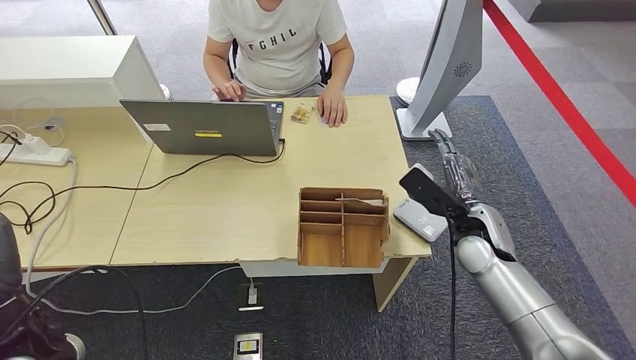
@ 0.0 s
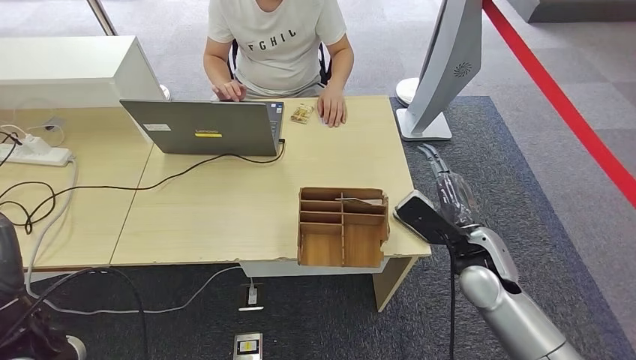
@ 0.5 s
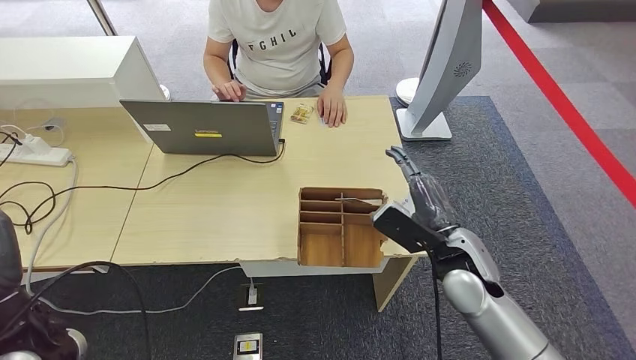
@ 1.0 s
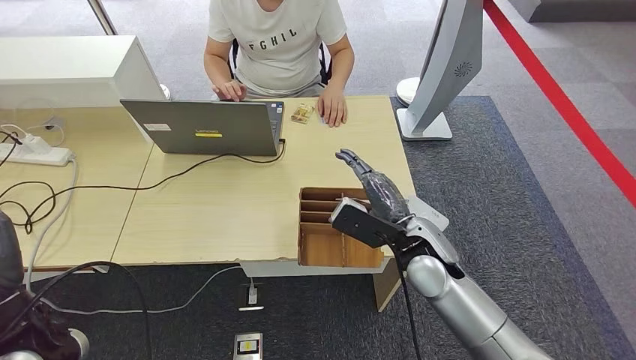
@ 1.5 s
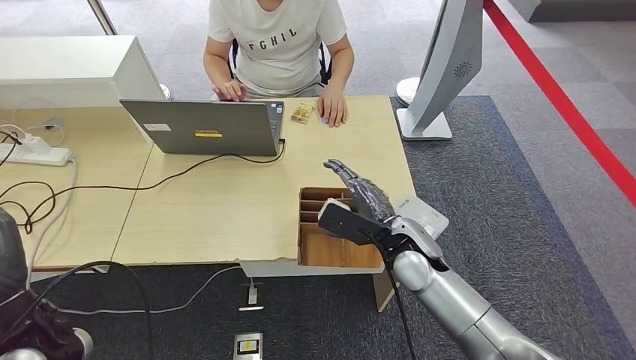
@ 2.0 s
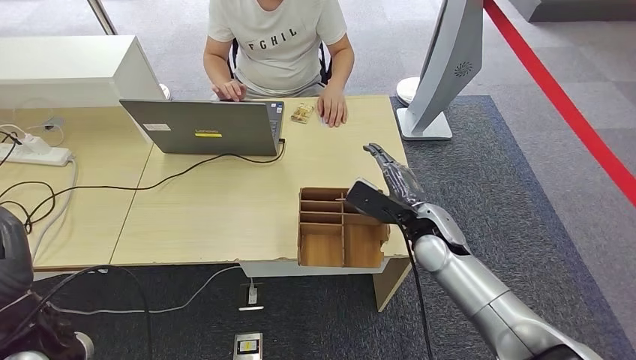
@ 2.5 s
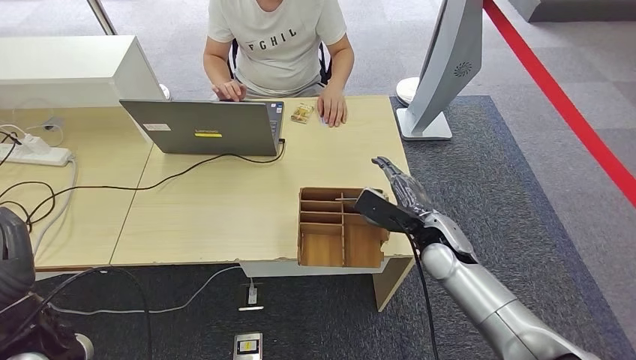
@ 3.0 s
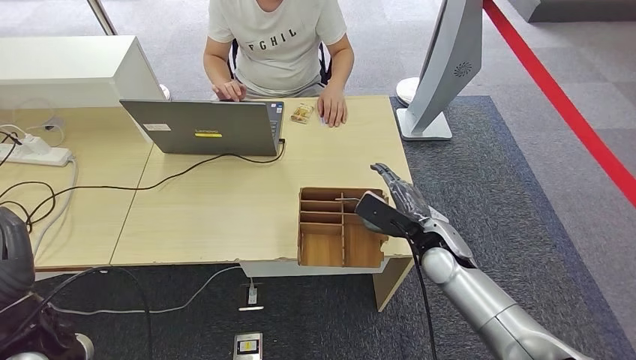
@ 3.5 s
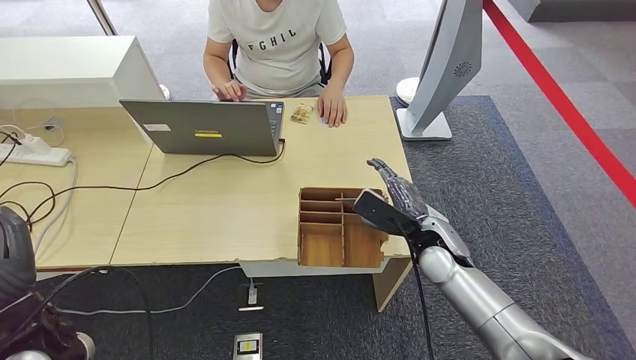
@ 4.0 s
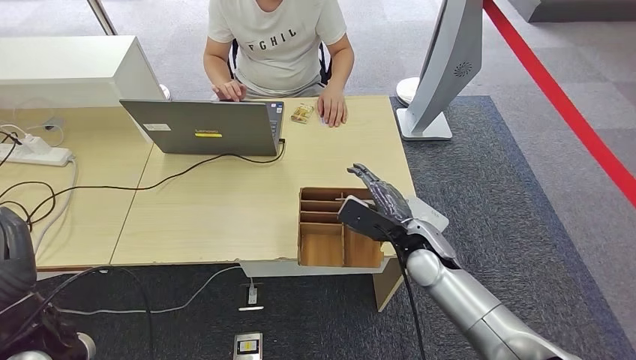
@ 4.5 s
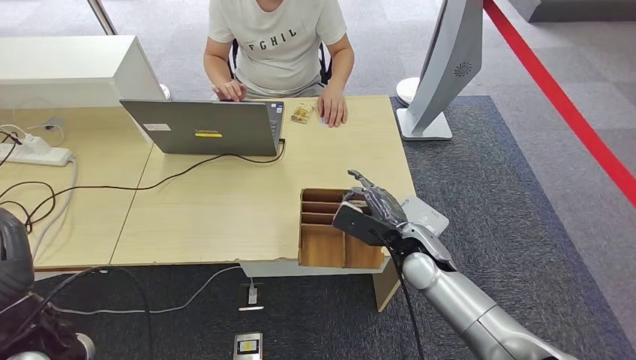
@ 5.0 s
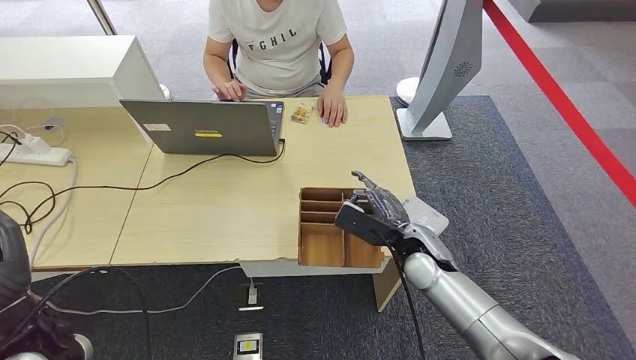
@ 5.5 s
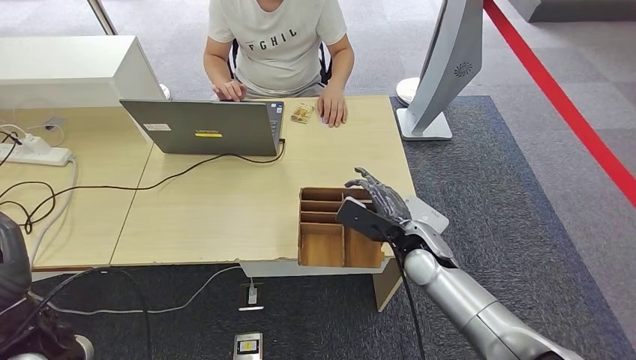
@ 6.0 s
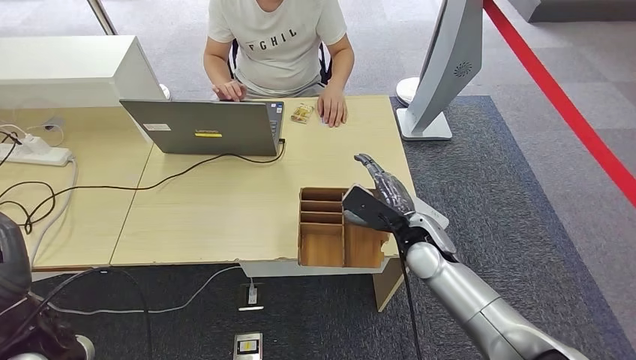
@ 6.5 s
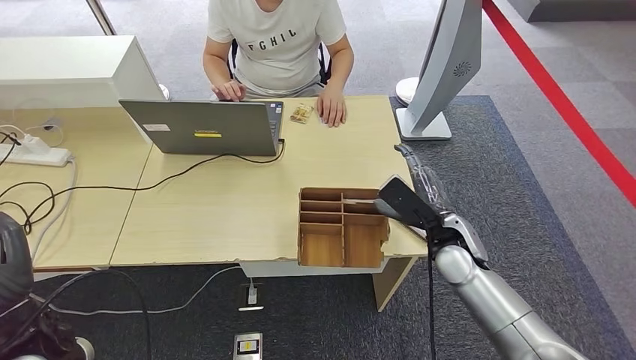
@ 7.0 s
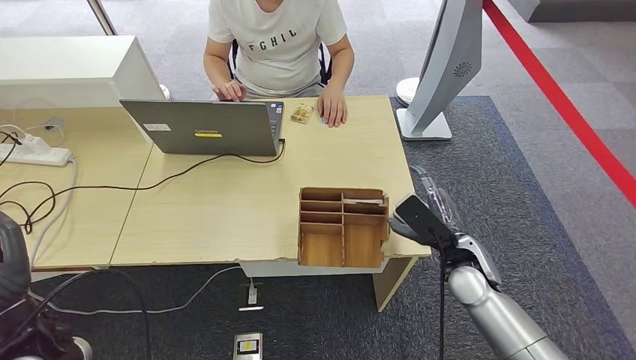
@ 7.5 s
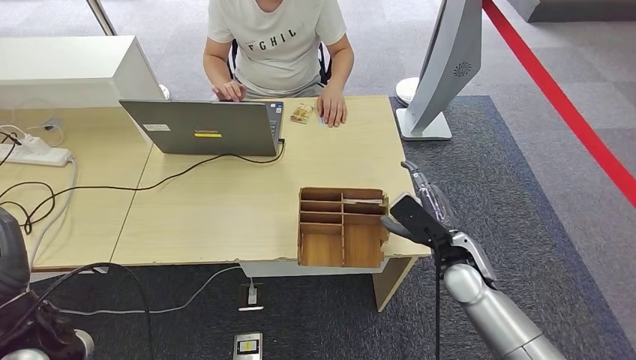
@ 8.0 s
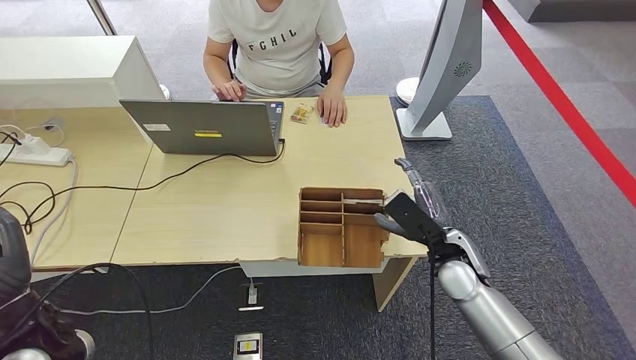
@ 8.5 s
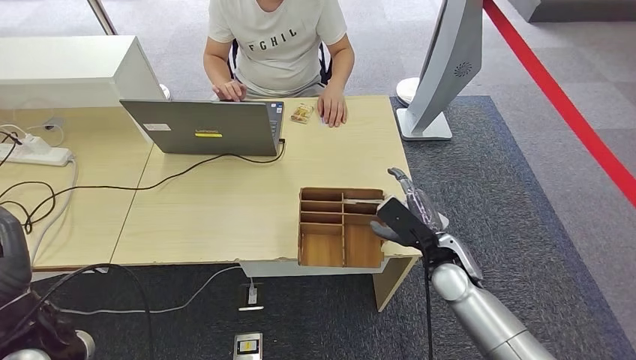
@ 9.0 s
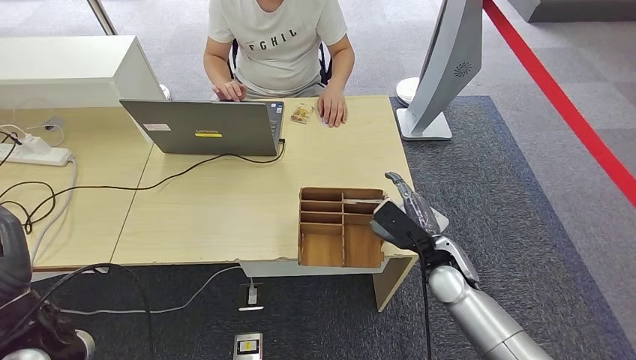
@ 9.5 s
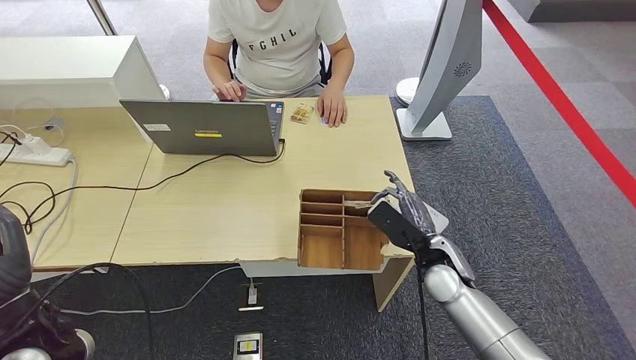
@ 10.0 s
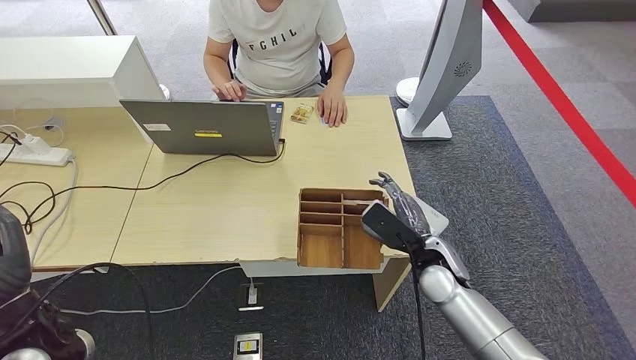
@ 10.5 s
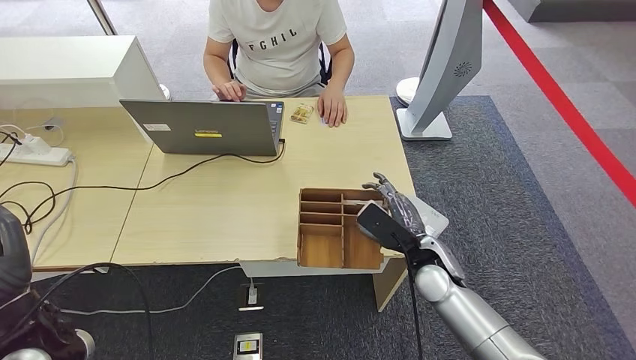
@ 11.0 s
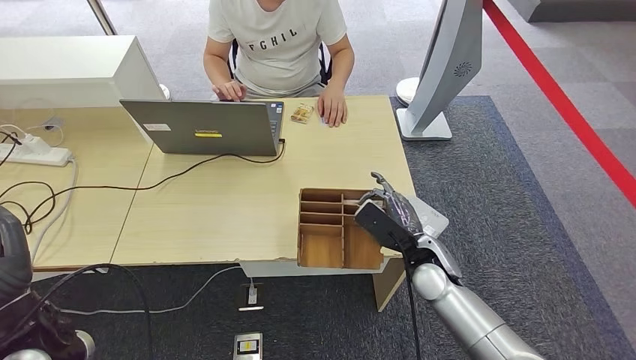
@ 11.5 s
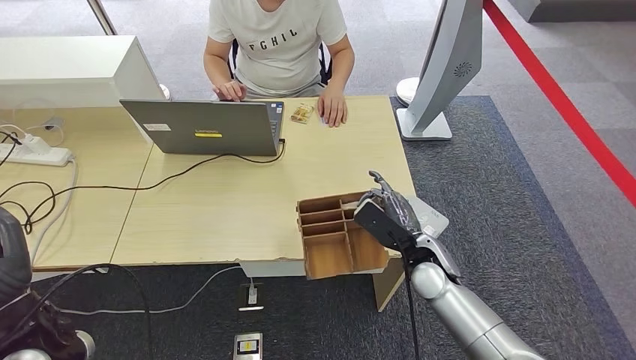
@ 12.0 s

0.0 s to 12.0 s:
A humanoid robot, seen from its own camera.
0.0 to 2.0 s: The right hand heads to the left, covering about 15 cm.
2.0 to 4.0 s: The right hand shifts some 5 cm to the right.
4.0 to 6.0 s: There are only small adjustments of the hands.
6.0 to 8.0 s: The right hand goes roughly 5 cm to the right.
8.0 to 12.0 s: The hands stay close to where they were, moving slightly.

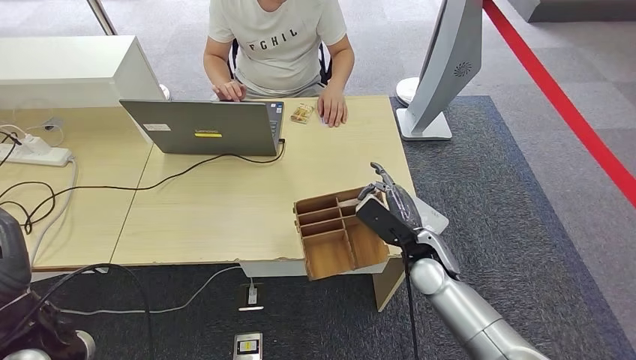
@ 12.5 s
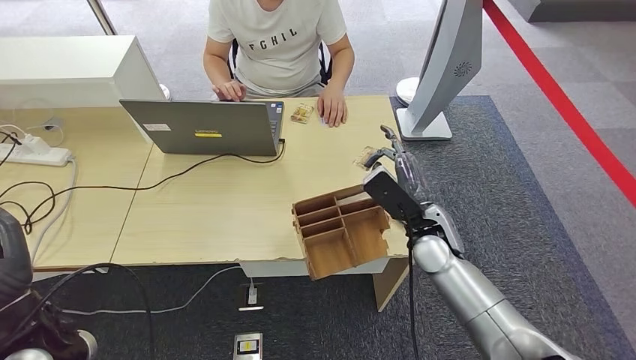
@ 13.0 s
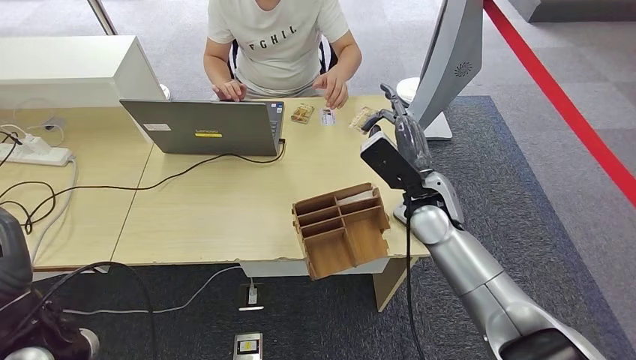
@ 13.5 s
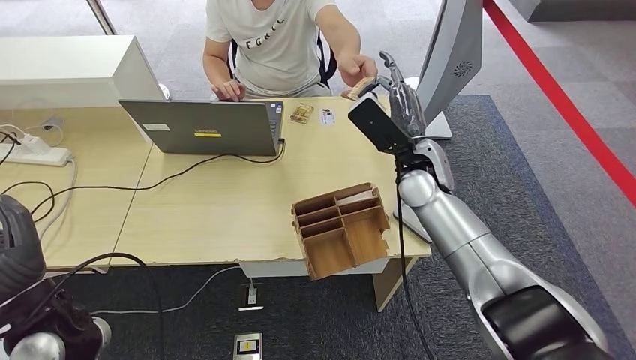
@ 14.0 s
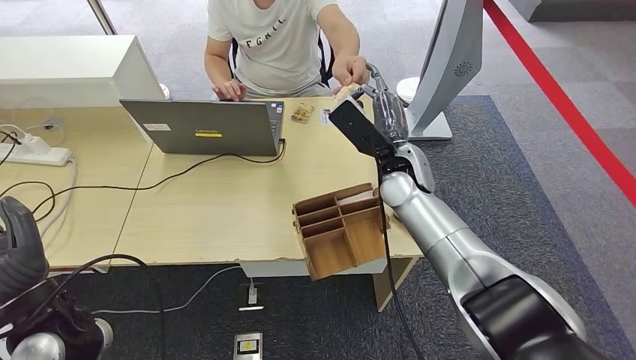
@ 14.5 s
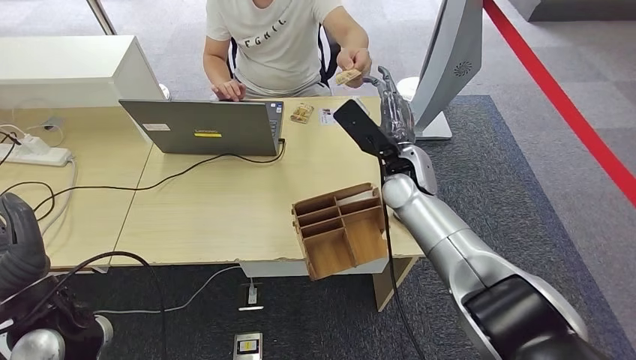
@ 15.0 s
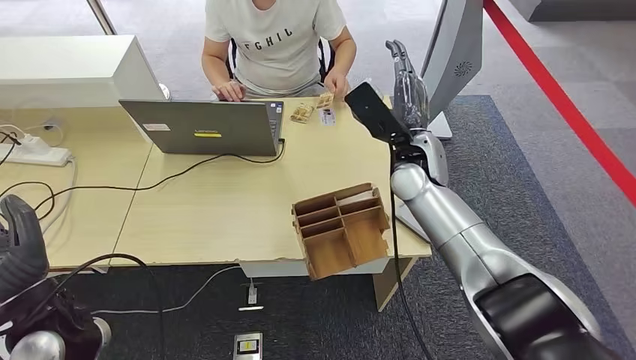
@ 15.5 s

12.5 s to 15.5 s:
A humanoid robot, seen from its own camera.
Step, 13.0 to 15.0 s: Hand the room key to the person.
12.5 to 14.0 s: The right hand heads upward and forward, covering roughly 15 cm.
14.0 to 15.5 s: The hands stay close to where they were, moving slightly.
